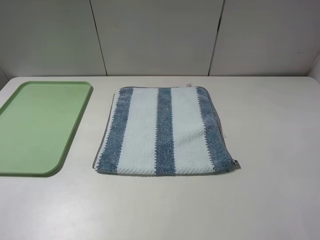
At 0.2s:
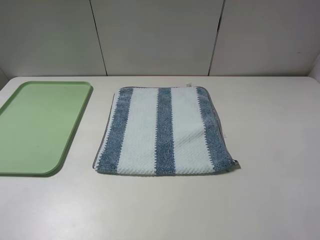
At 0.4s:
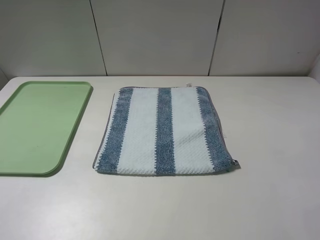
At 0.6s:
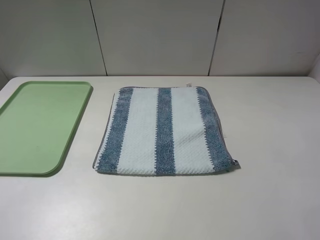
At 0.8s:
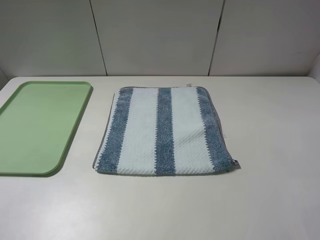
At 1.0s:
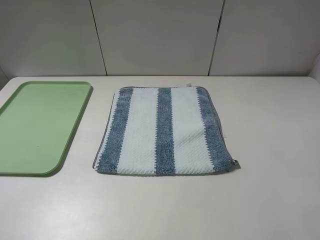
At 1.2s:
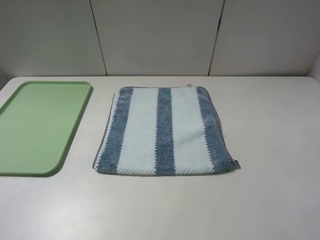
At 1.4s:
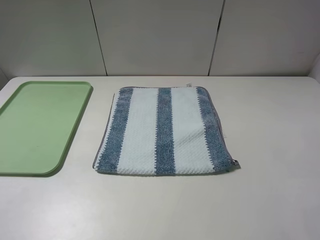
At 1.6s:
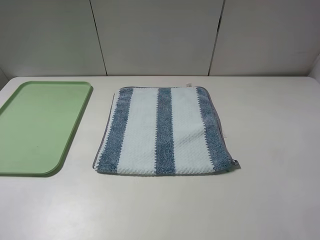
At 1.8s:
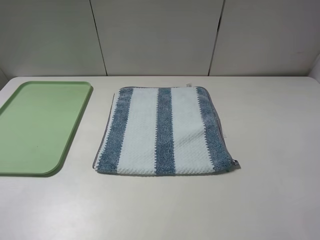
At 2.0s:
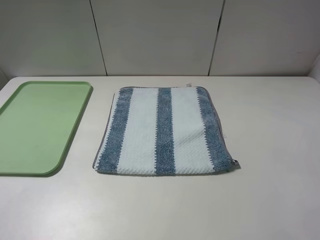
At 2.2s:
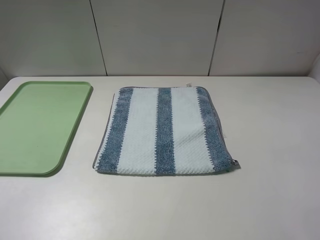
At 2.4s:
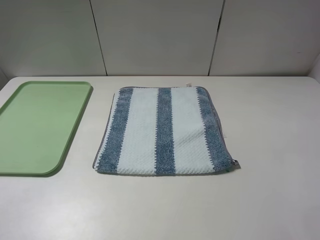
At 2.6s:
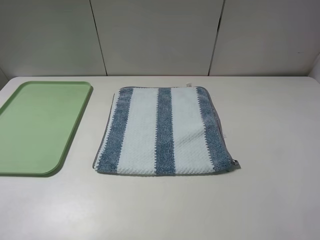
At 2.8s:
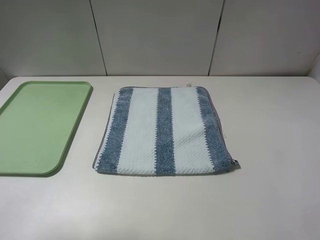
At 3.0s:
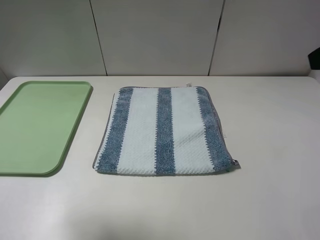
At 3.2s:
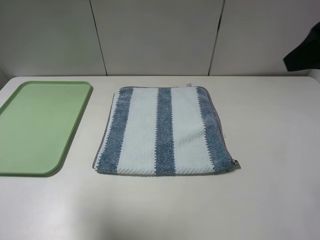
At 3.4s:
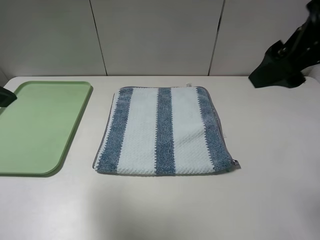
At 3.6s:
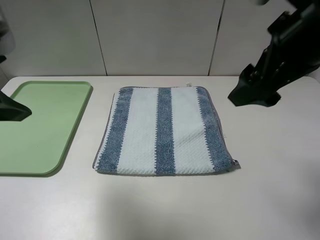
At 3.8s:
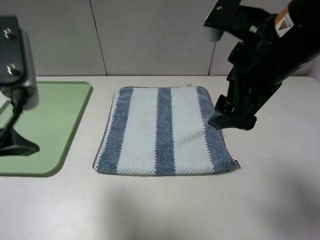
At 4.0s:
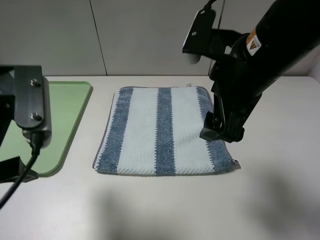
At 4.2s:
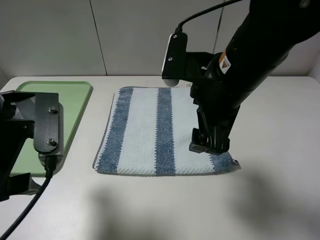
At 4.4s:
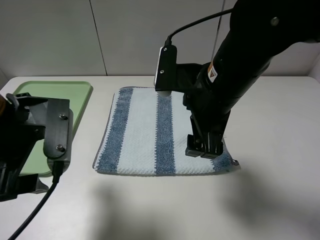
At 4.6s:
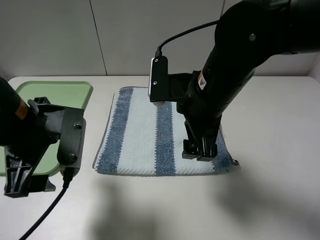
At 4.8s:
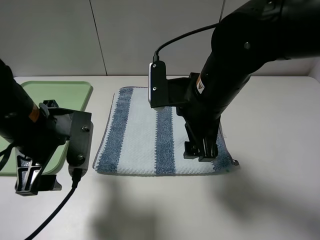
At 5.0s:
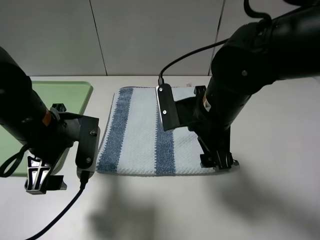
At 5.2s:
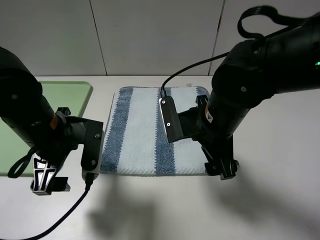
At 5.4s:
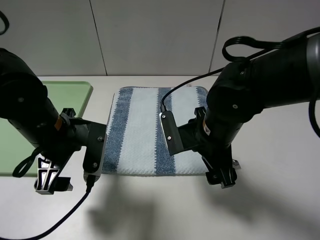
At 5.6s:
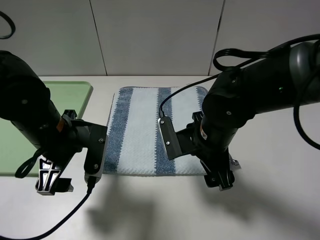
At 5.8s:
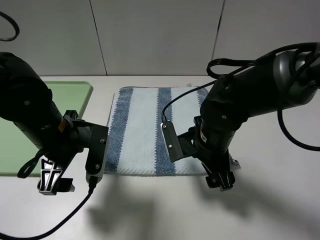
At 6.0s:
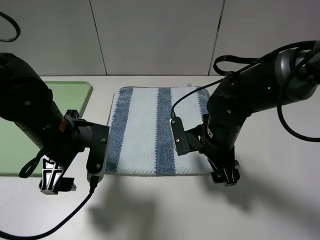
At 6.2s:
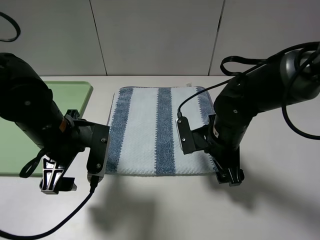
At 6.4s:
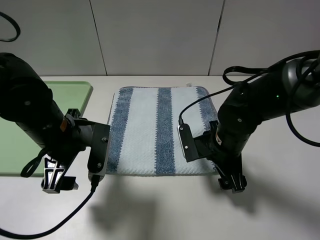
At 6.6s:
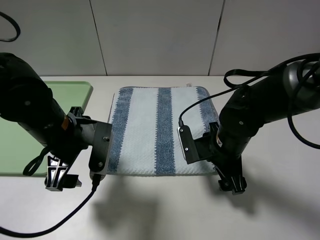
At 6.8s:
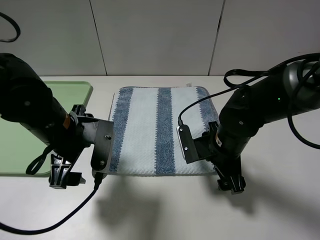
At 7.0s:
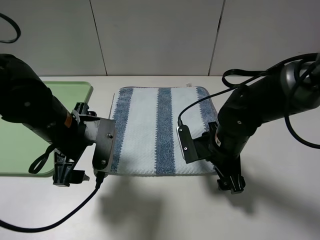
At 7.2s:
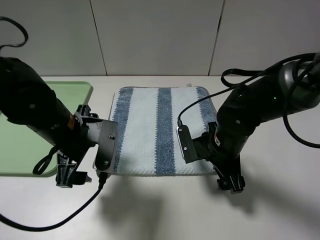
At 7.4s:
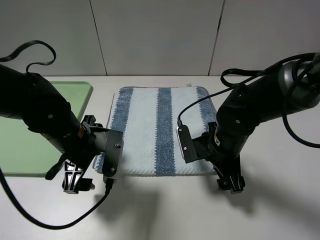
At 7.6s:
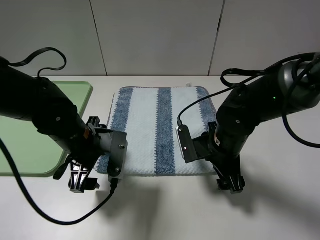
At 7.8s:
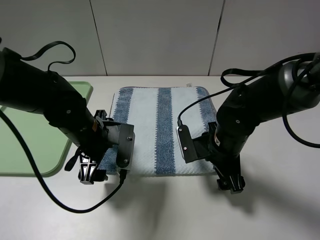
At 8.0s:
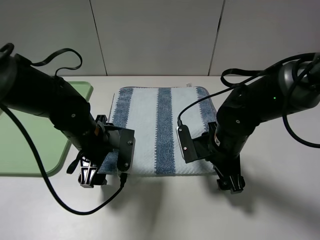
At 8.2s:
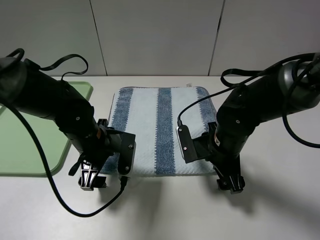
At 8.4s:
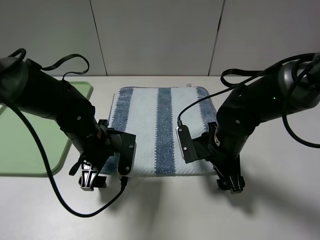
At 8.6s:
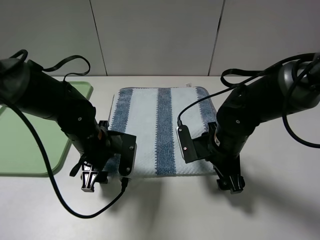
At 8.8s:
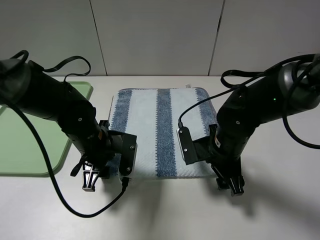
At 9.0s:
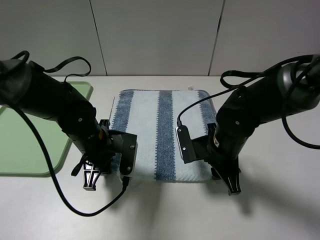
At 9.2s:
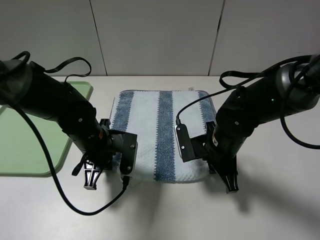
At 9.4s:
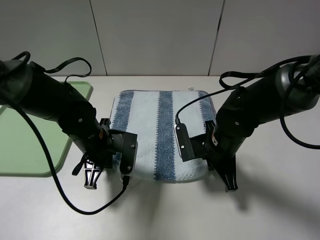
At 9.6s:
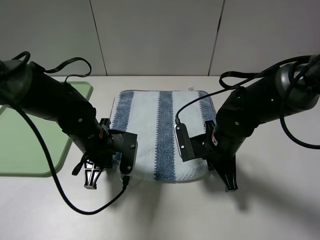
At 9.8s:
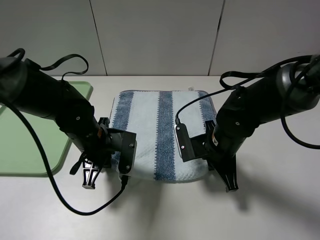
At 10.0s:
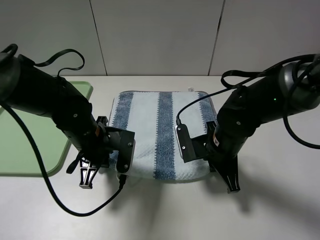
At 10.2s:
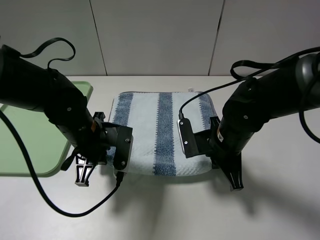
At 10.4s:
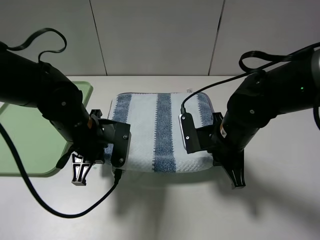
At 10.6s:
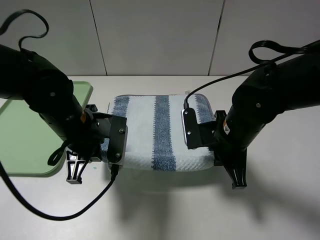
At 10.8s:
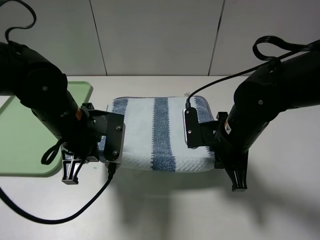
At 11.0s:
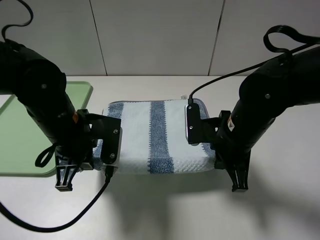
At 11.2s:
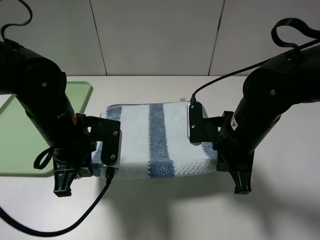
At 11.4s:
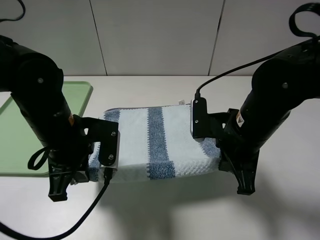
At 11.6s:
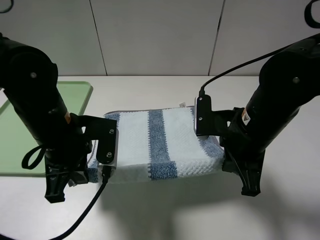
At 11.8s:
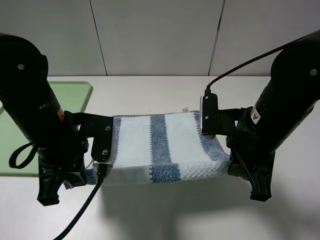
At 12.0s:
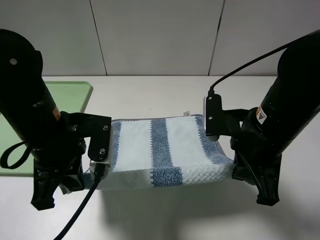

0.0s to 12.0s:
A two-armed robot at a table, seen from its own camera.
Step, 0.0s to 9.2s: Grasp the blue white towel with the left gripper.
0.0s to 1.6s: Both grippers stay about where they are.
1.6s to 3.0s: Both grippers travel together forward and upward, about 20 cm.
3.0s to 4.4s: The right gripper goes approximately 25 cm to the left and downward. The left gripper shifts approximately 20 cm downward and to the right.
4.4s to 6.0s: The left gripper goes about 5 cm downward. Meanwhile the right gripper shifts approximately 15 cm downward.
6.0s to 7.6s: The left gripper ends up some 5 cm from where it was.
7.6s to 9.0s: The left gripper closes up. Meanwhile the right gripper closes.
9.0s to 10.4s: The right gripper closes up.
10.4s to 12.0s: The right gripper moves upward, approximately 10 cm; the left gripper travels upward and backward by roughly 10 cm.

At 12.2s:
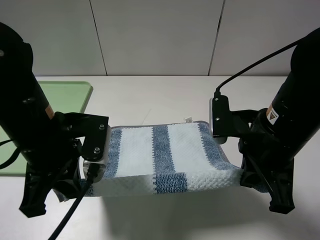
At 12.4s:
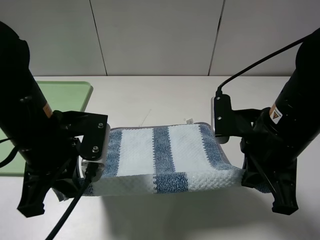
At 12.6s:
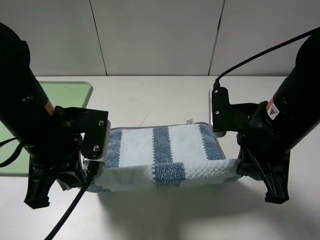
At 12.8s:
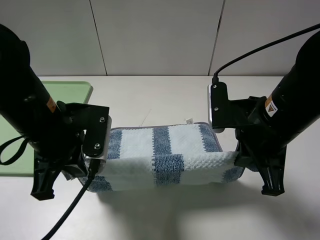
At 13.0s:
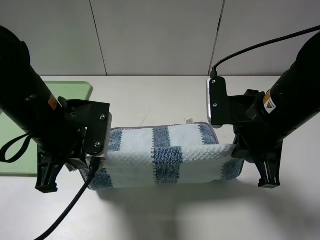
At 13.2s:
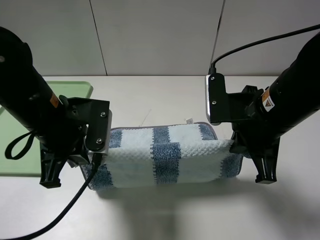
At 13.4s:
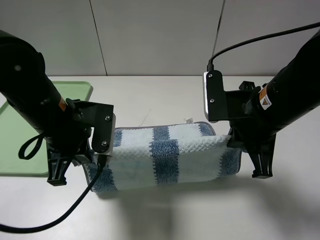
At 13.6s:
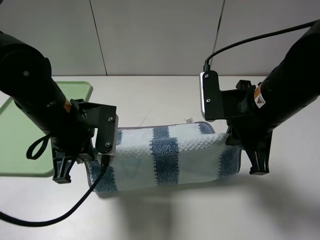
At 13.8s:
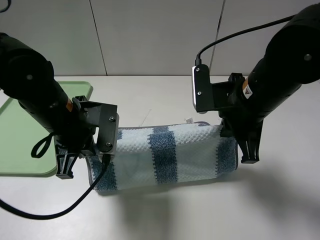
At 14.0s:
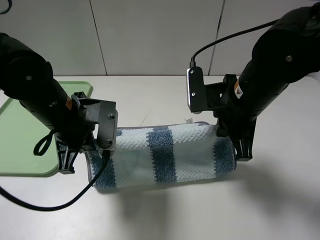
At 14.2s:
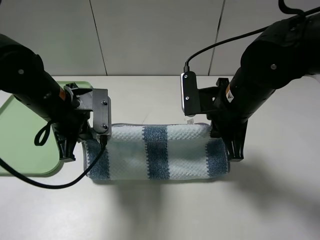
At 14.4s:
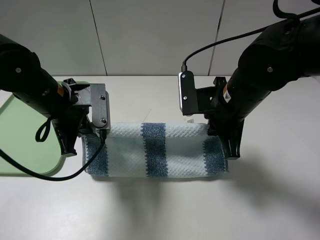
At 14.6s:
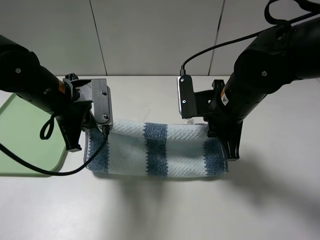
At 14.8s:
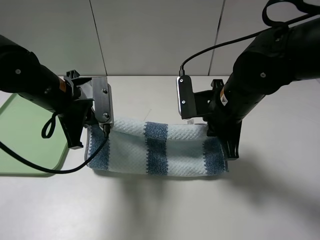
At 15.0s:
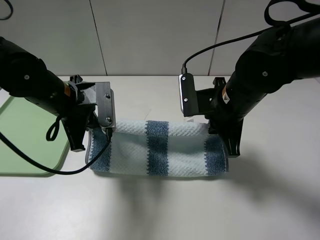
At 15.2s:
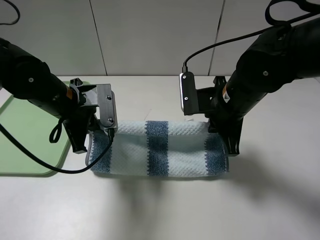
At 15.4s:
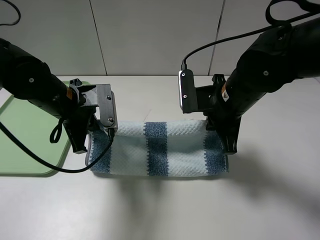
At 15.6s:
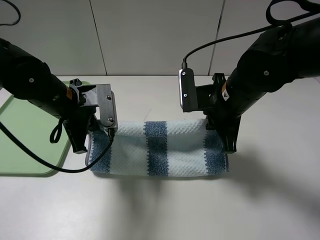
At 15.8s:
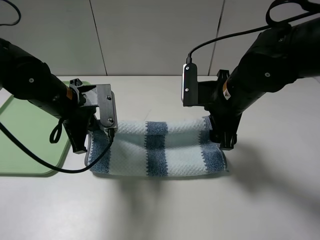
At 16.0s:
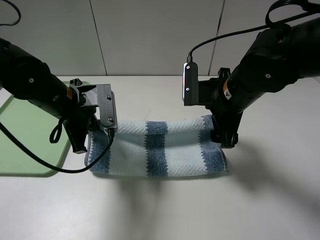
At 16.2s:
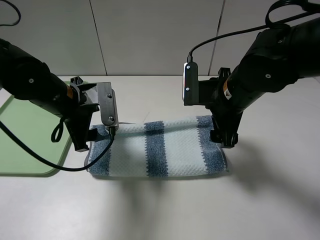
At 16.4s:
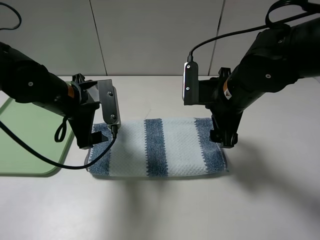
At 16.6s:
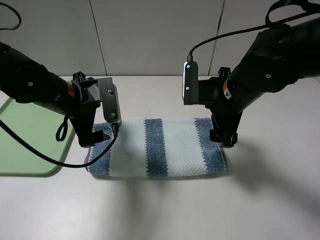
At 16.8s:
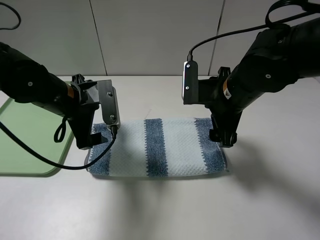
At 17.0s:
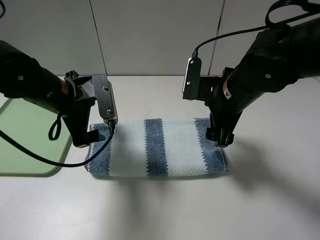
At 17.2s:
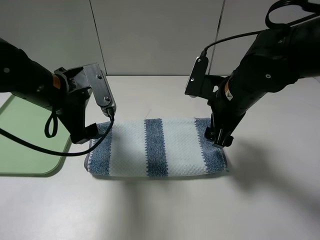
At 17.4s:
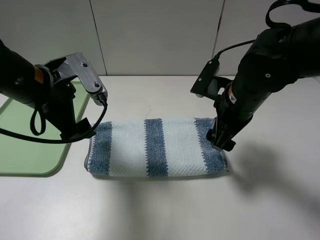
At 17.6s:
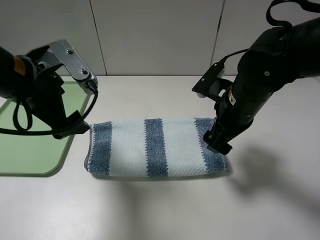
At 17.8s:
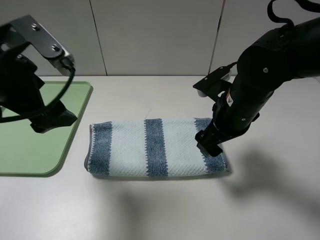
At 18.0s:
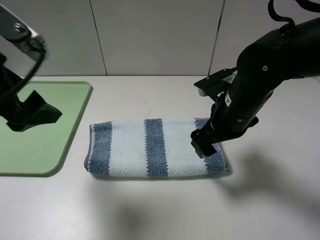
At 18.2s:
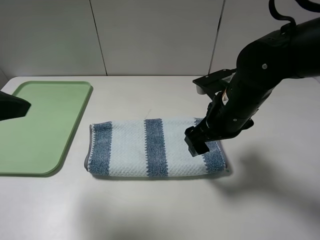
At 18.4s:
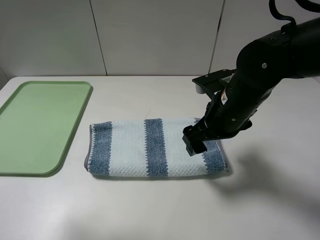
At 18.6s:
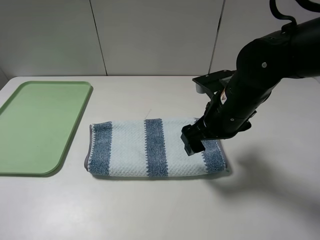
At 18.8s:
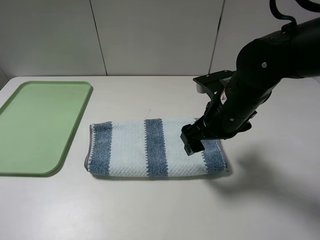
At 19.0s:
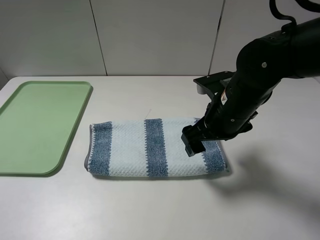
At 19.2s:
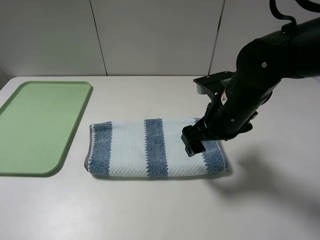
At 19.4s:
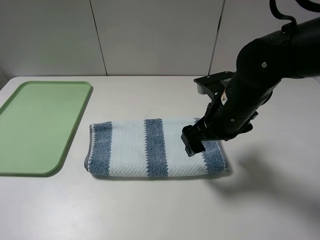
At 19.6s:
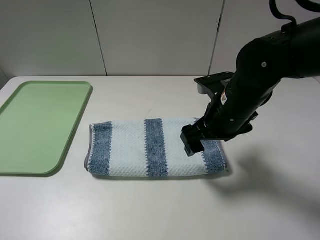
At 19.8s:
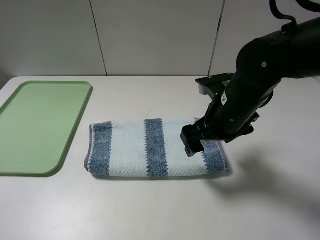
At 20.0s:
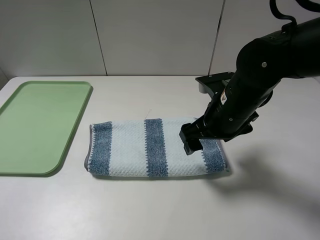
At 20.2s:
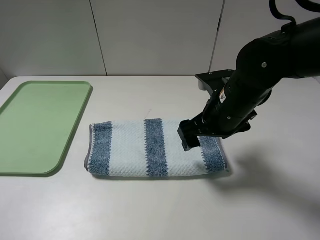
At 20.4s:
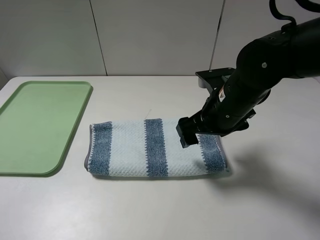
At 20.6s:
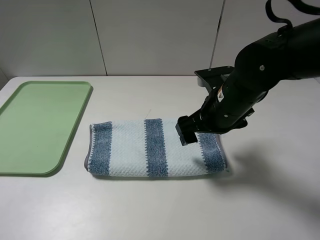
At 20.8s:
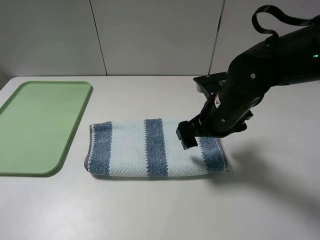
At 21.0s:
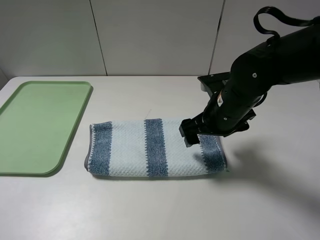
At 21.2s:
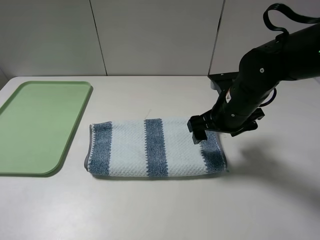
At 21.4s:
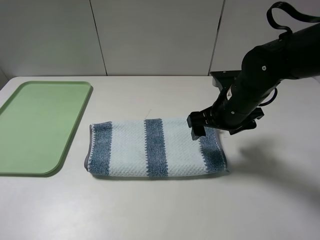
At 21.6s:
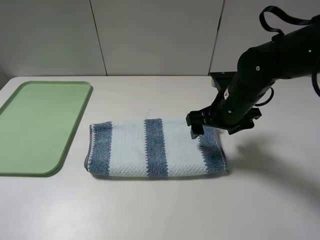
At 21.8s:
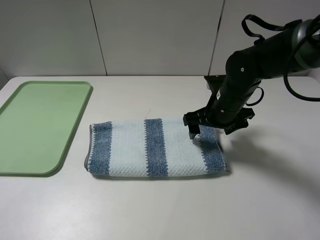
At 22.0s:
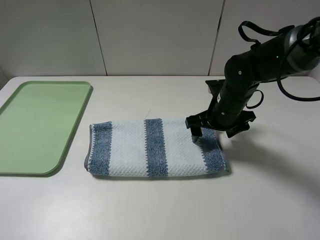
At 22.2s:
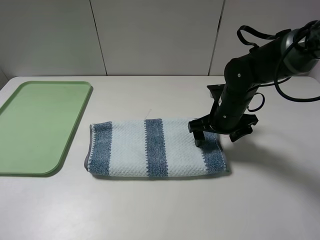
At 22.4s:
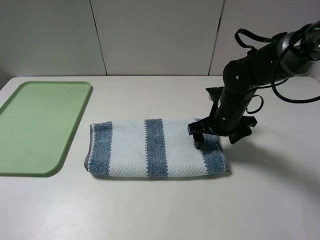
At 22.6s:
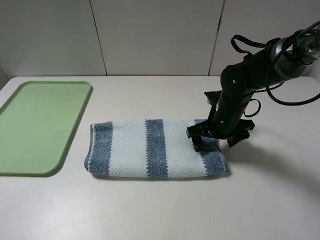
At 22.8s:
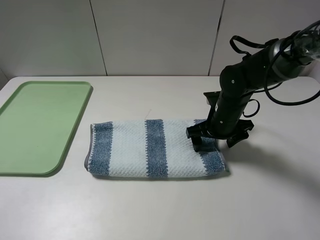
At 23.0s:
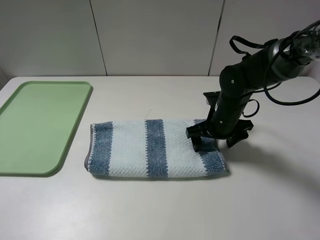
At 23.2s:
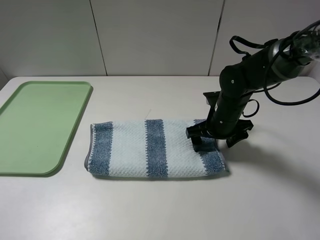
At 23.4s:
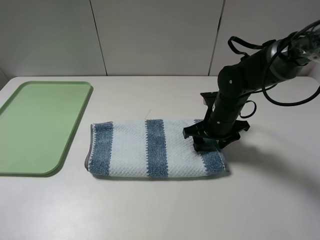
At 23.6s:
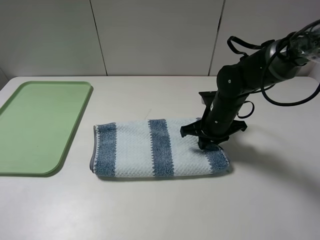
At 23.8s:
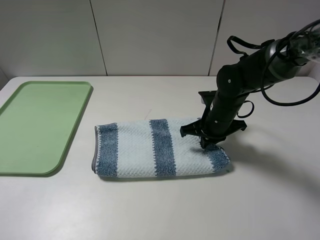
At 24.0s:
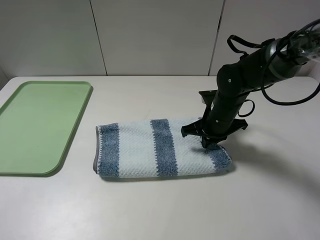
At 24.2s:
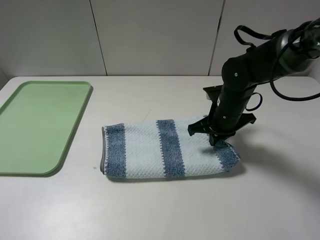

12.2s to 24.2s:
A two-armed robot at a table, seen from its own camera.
Step, 12.2s to 16.2s: Fold the blue white towel upwards with the left gripper.
Step, 16.4s to 24.0s: Grasp the blue white towel with the right gripper.
12.2s to 13.8s: The two grippers go some 5 cm forward.
15.2s to 16.6s: The right gripper opens its fingers, while the left gripper opens its fingers.
16.6s to 18.2s: The left gripper travels upward, backward and to the left by roughly 25 cm.
18.2s to 19.8s: The left gripper travels backward, to the left and downward by roughly 15 cm.
19.8s to 21.2s: There are only small adjustments of the grippers.
21.2s to 22.6s: The right gripper is displaced downward by about 5 cm.
22.6s to 24.2s: The right gripper closes up.
